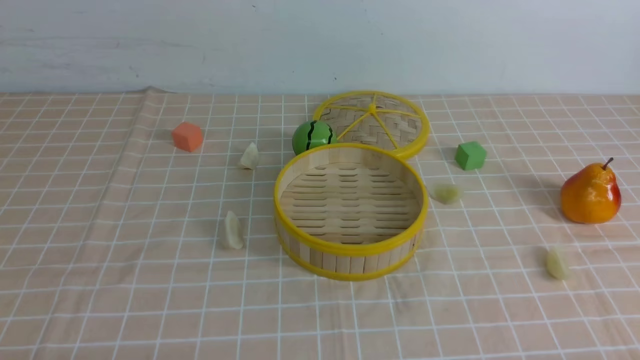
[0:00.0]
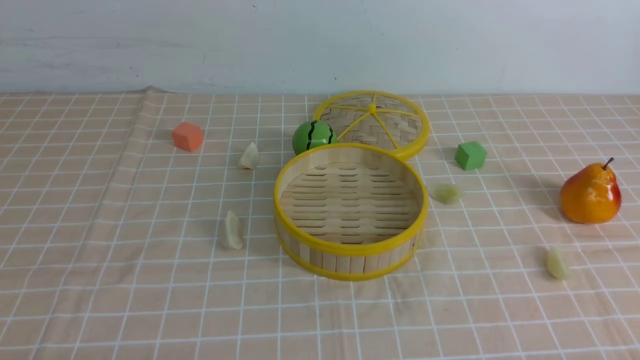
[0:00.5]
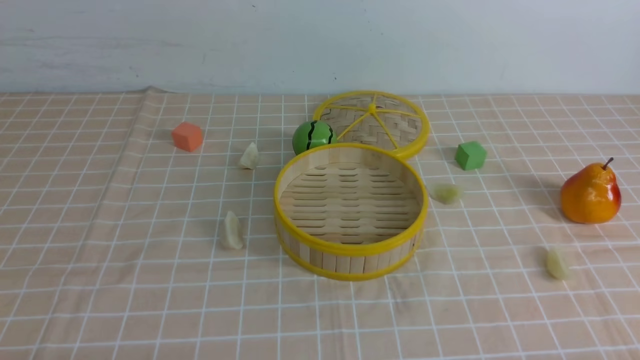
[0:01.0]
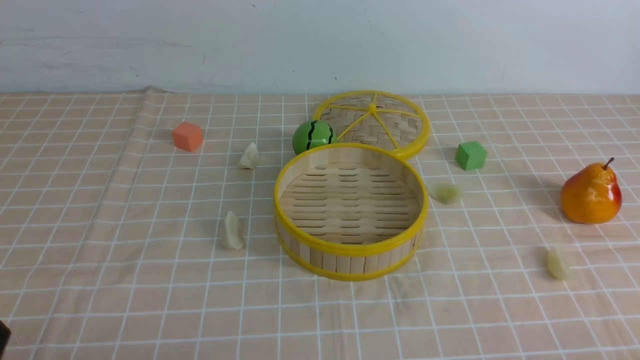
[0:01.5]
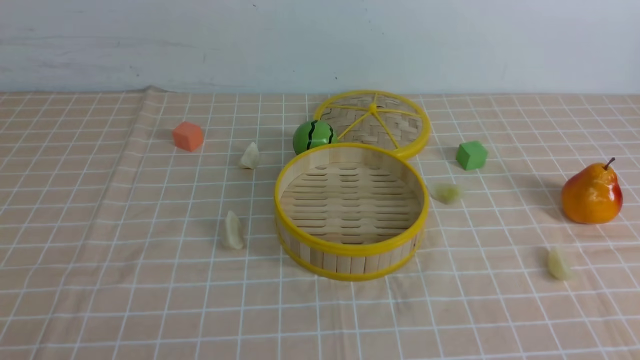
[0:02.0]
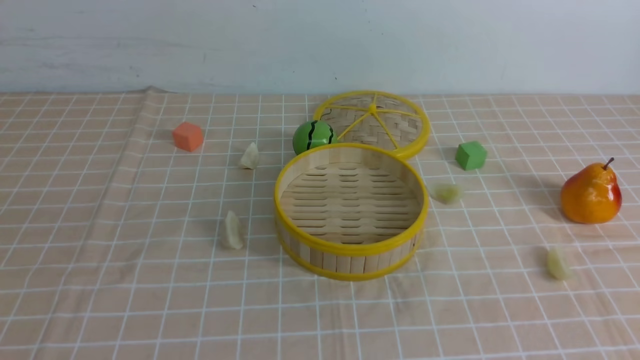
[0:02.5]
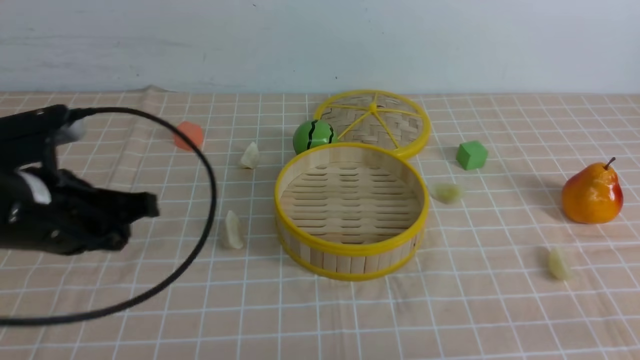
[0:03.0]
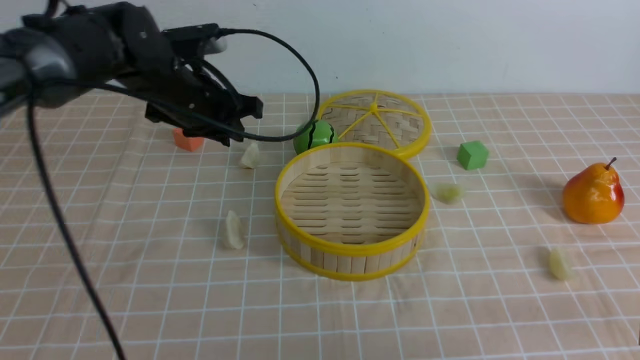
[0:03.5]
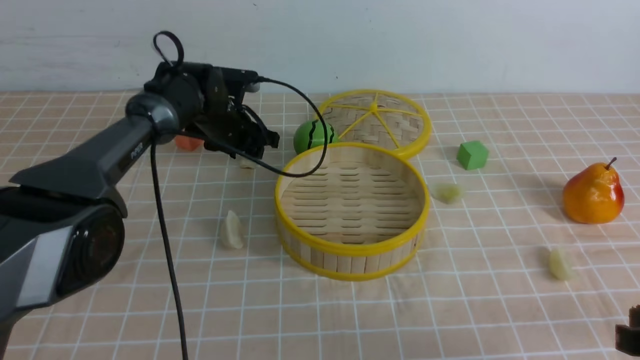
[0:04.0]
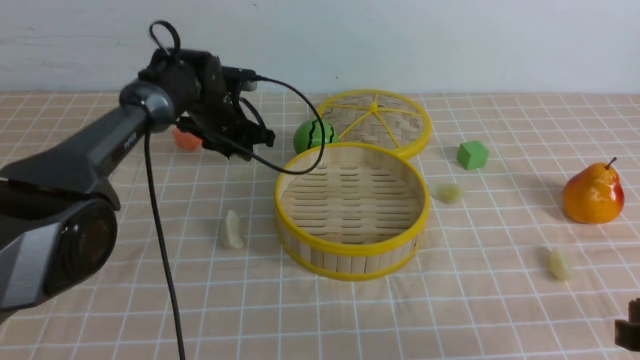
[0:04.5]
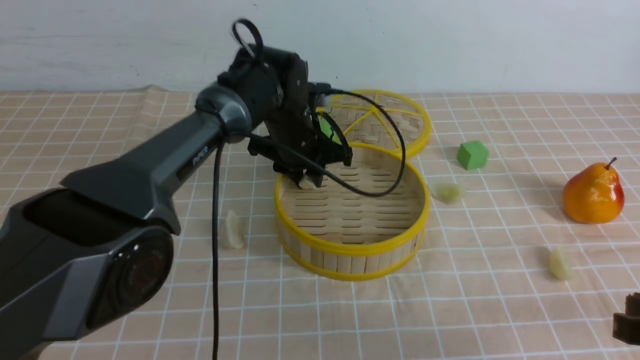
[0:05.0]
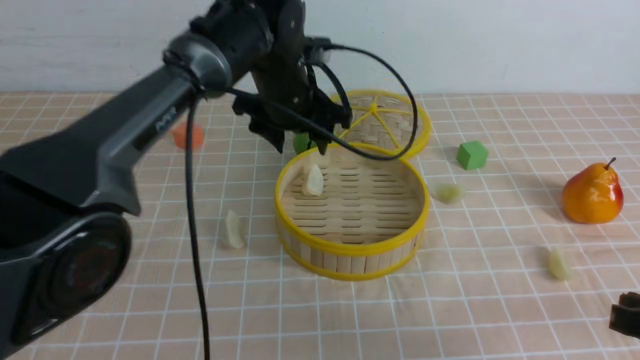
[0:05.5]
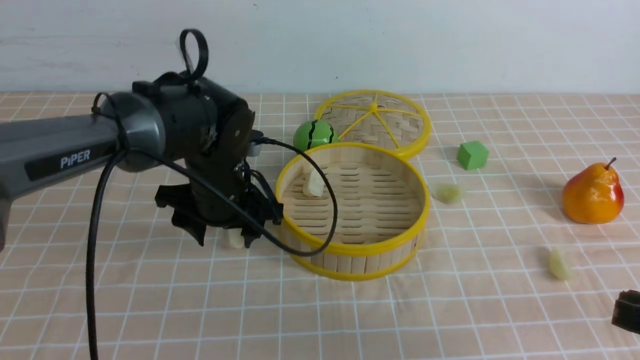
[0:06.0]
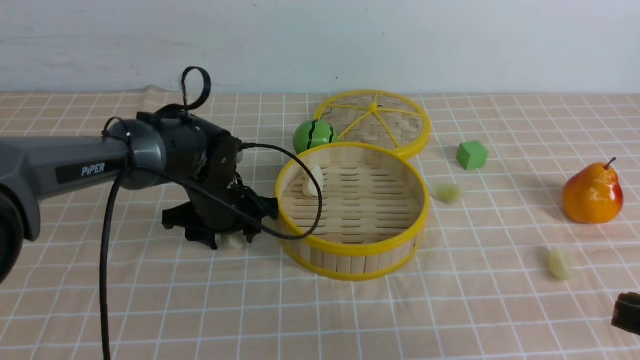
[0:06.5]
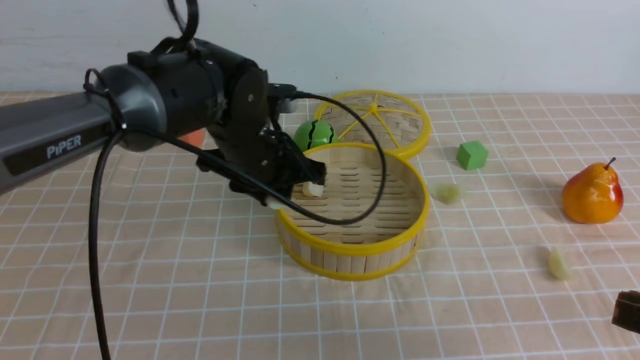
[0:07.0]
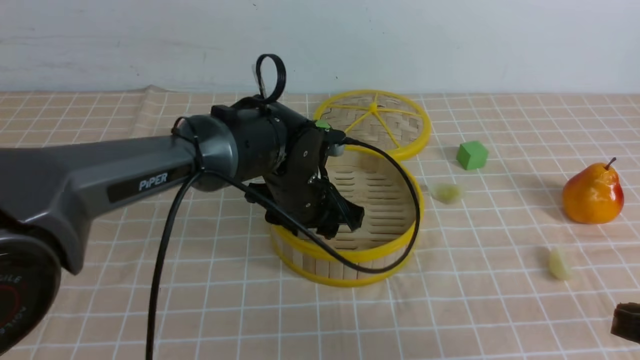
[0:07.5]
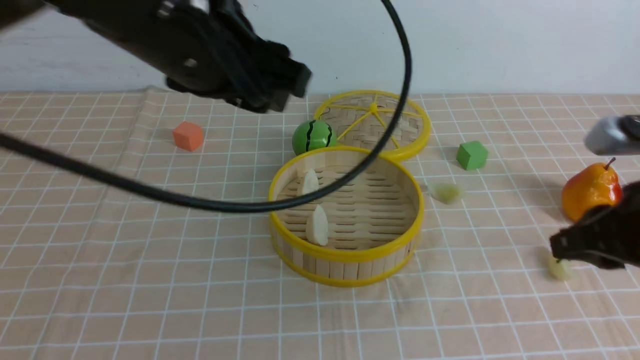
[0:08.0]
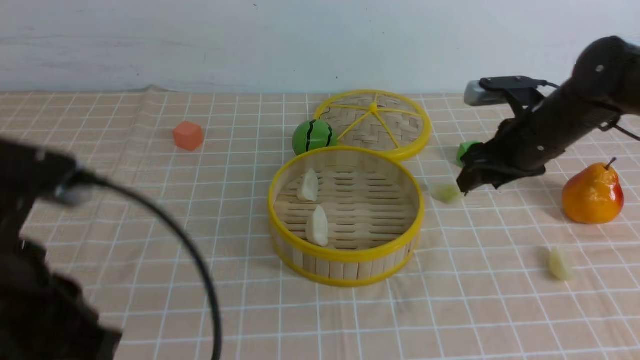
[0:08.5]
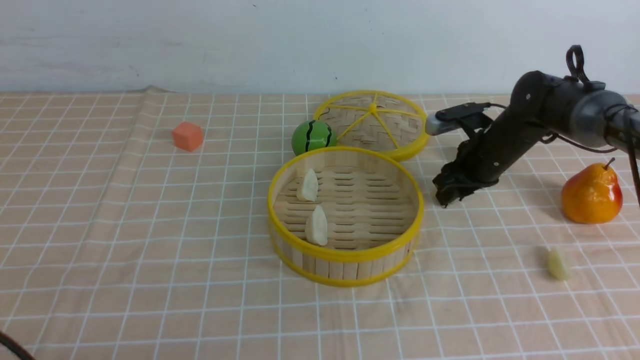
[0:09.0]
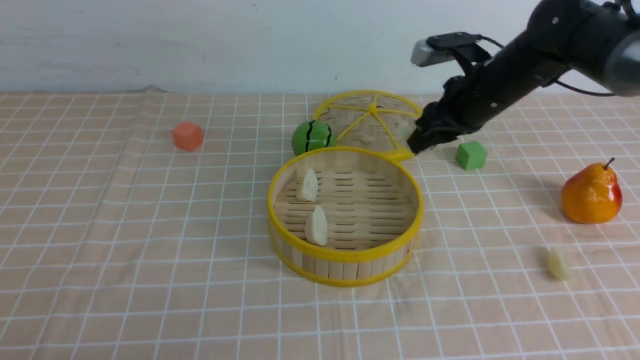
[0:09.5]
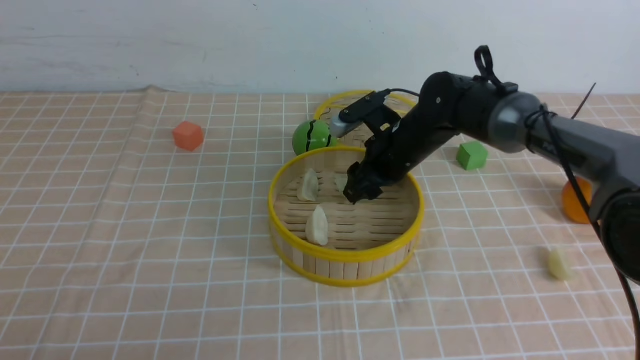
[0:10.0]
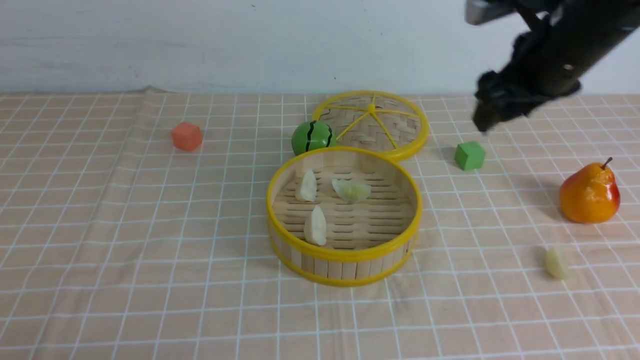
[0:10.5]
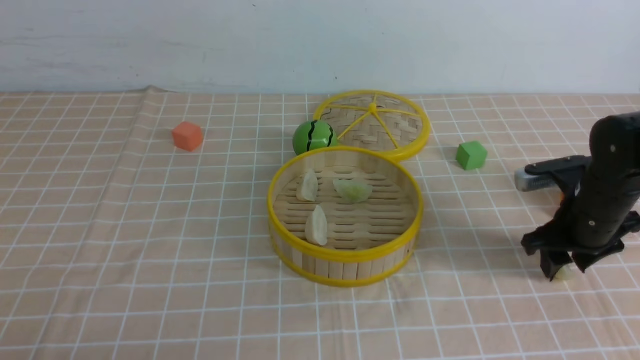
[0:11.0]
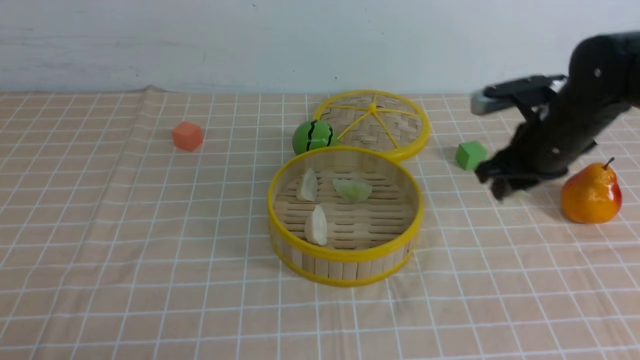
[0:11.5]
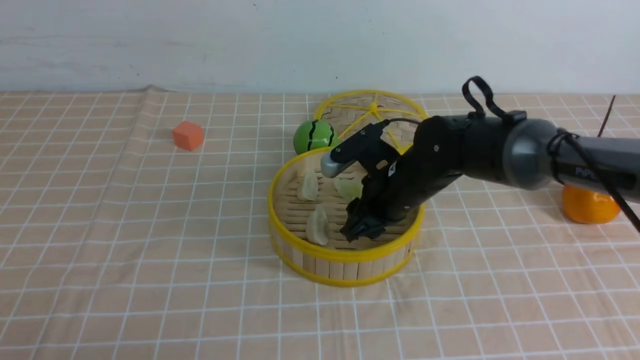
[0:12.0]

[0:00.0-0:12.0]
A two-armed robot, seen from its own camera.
Task of the whole recording: put the dumplings into the steamer on the table with the brown tablecloth.
Step, 0:00.0 to 0:04.0: use the left arm to grab a dumpling.
Step, 0:04.5 to 0:05.0: use the left arm to put the dumpling into the steamer.
Step, 0:05.5 to 0:06.5: use the left arm to grab a dumpling.
Step, 0:07.0 to 0:07.5: use the left arm to put the dumpling into the steamer.
Step, 0:08.0 to 0:09.0: use the right arm to grab a dumpling.
Step, 0:09.5 to 0:10.0: use the right arm to put the dumpling into the steamer.
Step, 0:10.5 to 0:11.0: use the right arm to grab a dumpling.
0:02.0 to 0:04.0: The left gripper moves forward, approximately 50 cm, and opens its fingers, while the right gripper shifts about 10 cm forward.
0:04.0 to 0:06.0: The left gripper goes approximately 15 cm backward.
0:06.0 to 0:08.0: The right gripper is displaced forward and upward by some 10 cm, while the left gripper heads upward and backward, covering about 20 cm.
0:08.0 to 0:10.0: The right gripper moves forward and to the left, approximately 25 cm, and opens its fingers, while the left gripper goes roughly 30 cm backward, to the left and downward, and closes up.
0:10.0 to 0:12.0: The right gripper goes some 5 cm backward, and travels to the right and back again, roughly 20 cm each way.

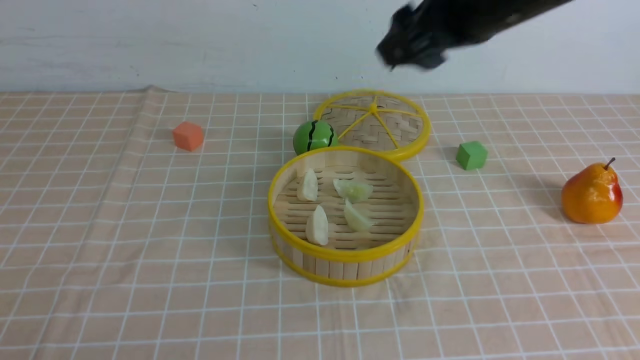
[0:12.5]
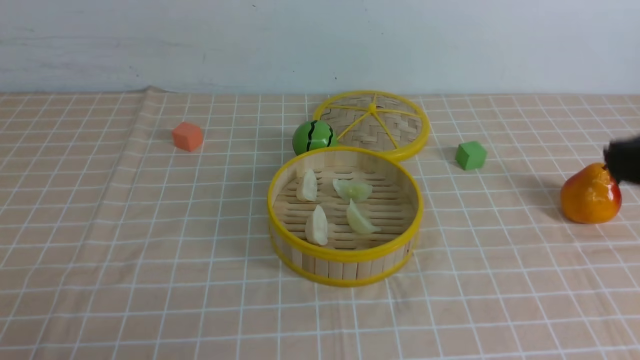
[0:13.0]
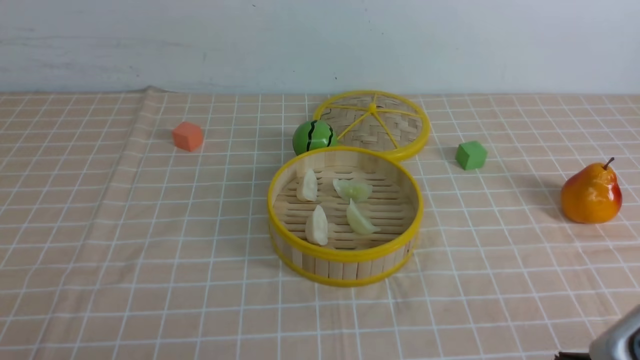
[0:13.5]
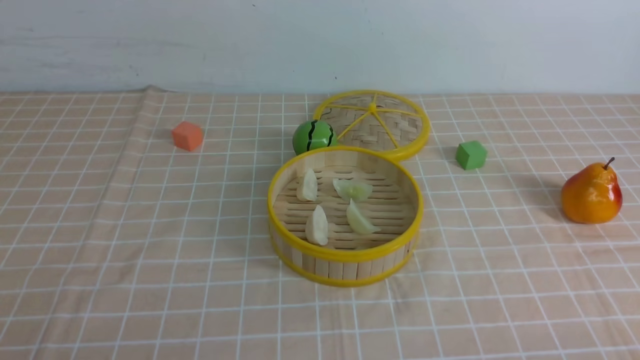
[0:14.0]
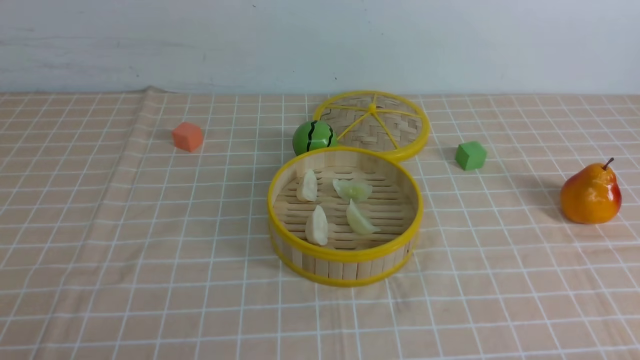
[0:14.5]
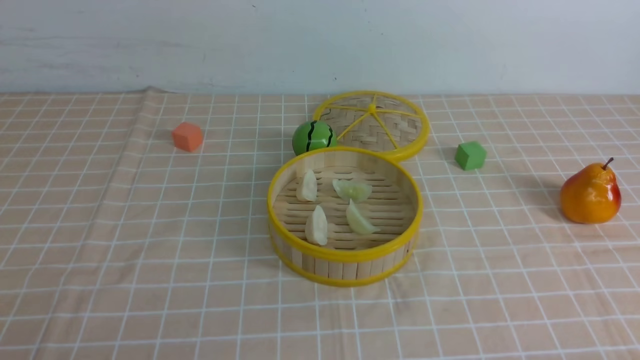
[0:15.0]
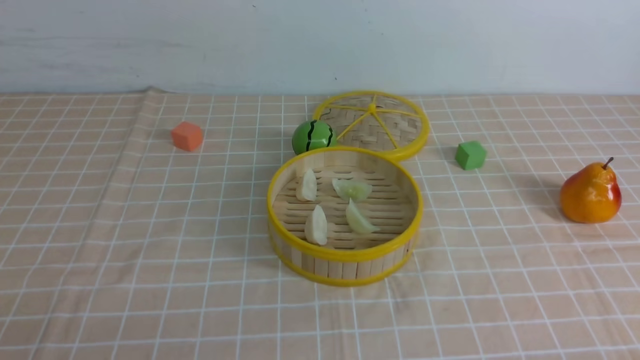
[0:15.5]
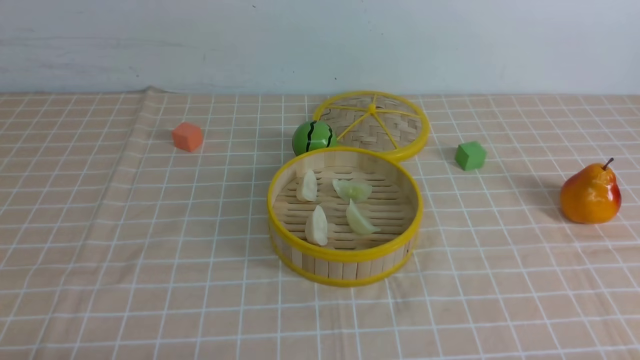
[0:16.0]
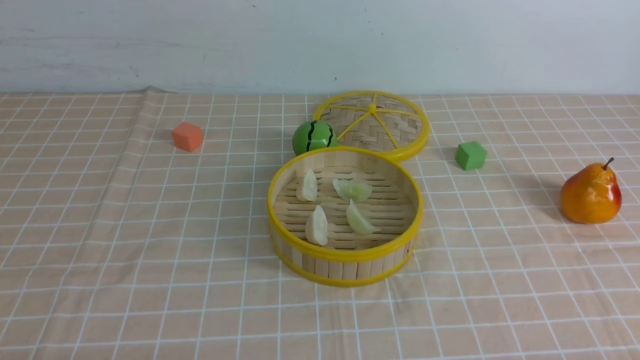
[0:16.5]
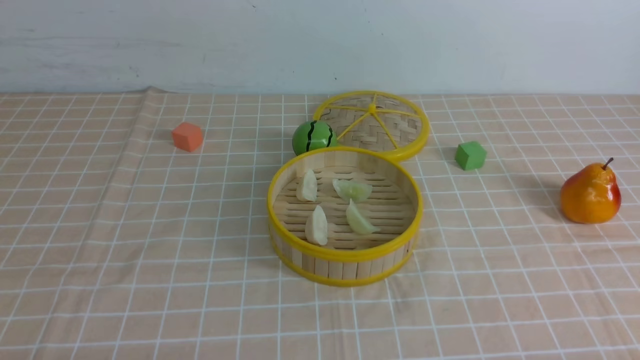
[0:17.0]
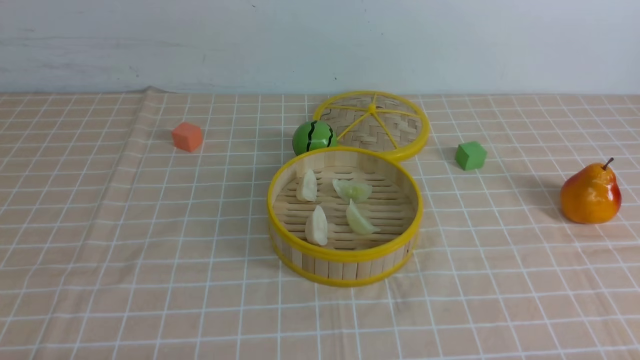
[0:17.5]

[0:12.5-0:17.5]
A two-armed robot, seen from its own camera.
Task of the whole recording: put the dumplings into the steamer on the table with the brown tablecloth.
0:12.5 to 0:15.0: The right gripper goes roughly 40 cm downward, backward and to the right, and closes its fingers.
